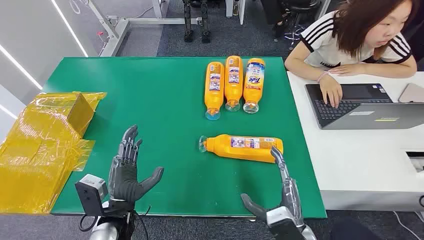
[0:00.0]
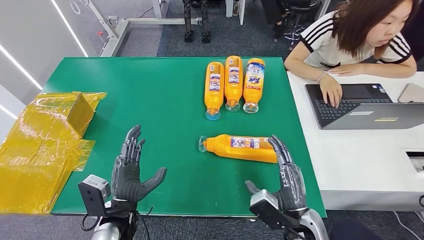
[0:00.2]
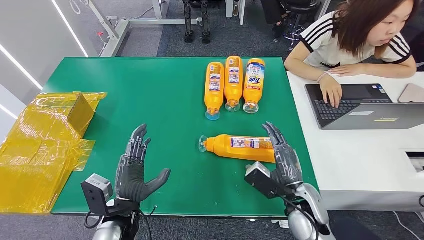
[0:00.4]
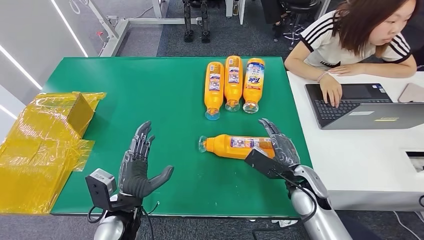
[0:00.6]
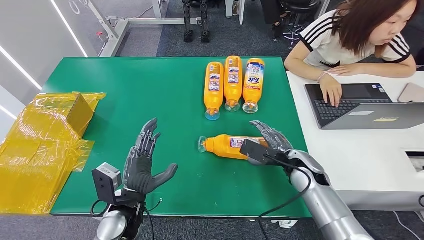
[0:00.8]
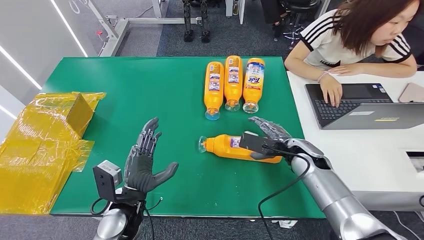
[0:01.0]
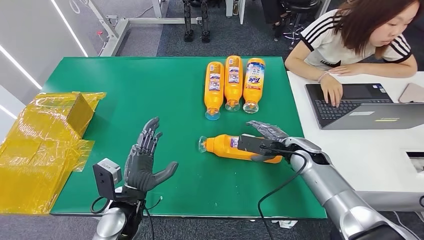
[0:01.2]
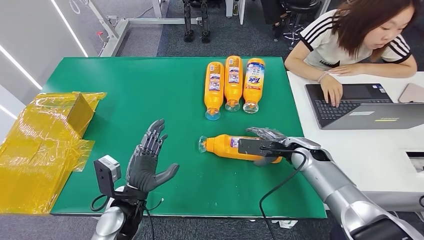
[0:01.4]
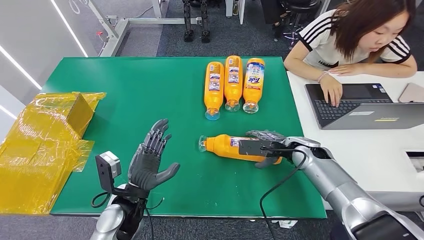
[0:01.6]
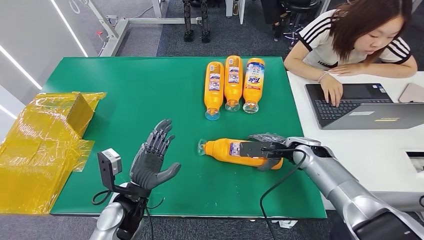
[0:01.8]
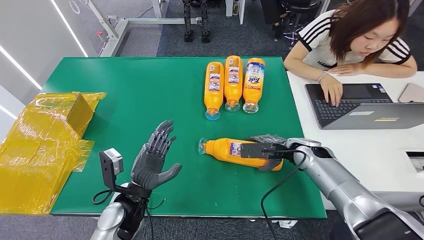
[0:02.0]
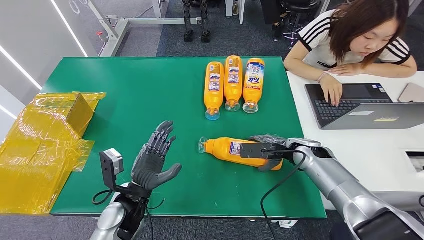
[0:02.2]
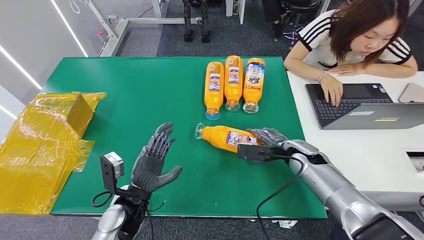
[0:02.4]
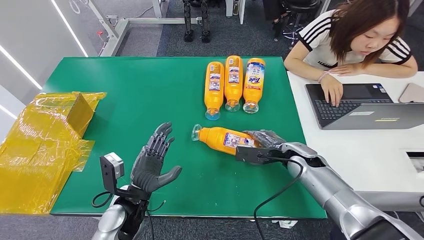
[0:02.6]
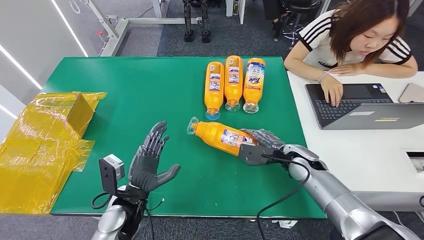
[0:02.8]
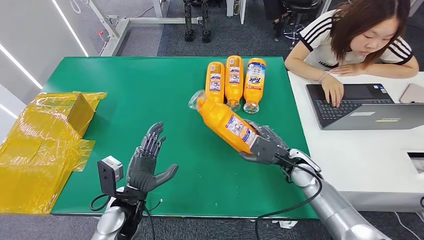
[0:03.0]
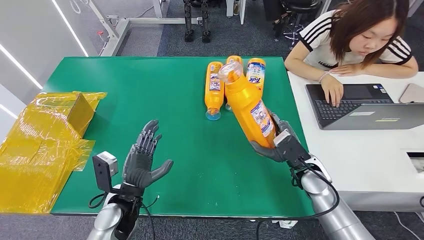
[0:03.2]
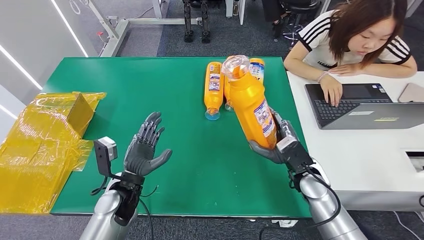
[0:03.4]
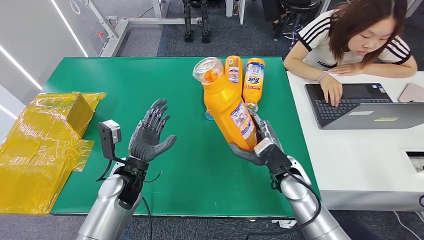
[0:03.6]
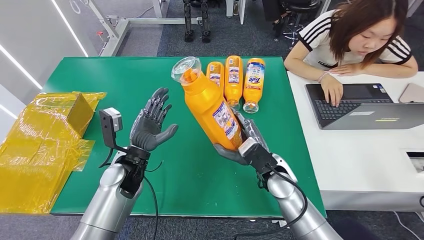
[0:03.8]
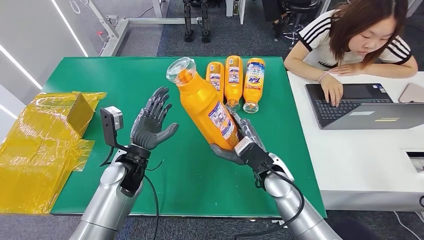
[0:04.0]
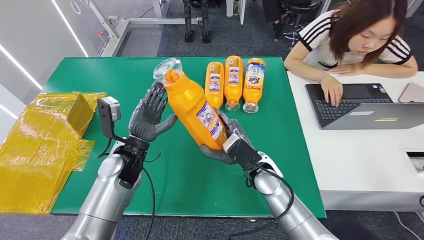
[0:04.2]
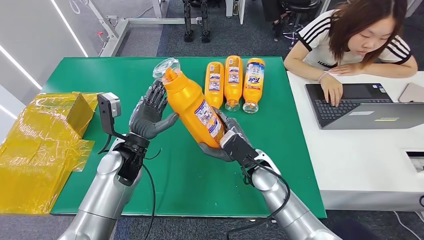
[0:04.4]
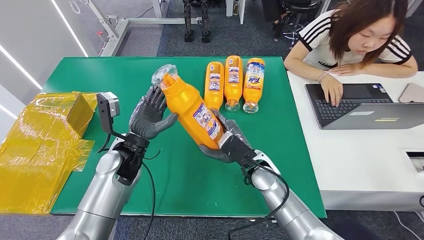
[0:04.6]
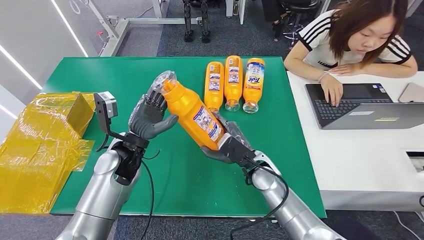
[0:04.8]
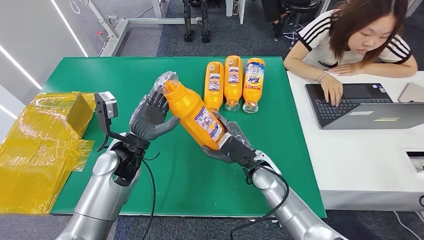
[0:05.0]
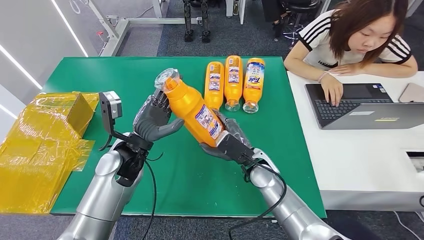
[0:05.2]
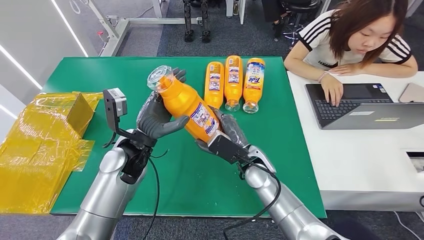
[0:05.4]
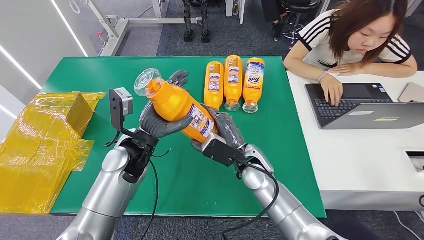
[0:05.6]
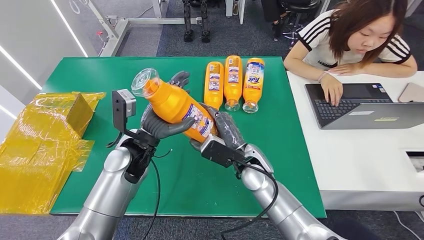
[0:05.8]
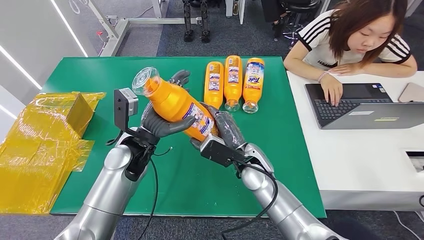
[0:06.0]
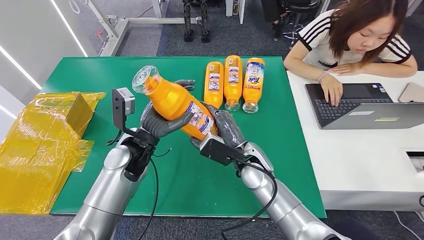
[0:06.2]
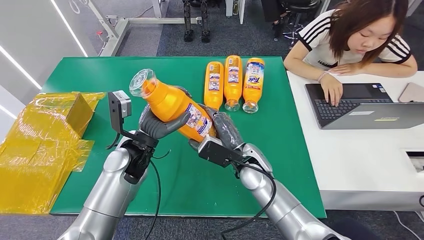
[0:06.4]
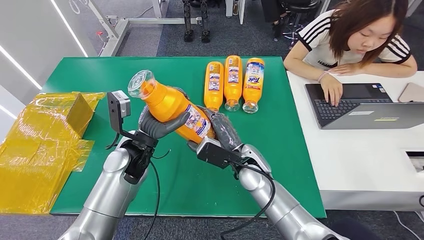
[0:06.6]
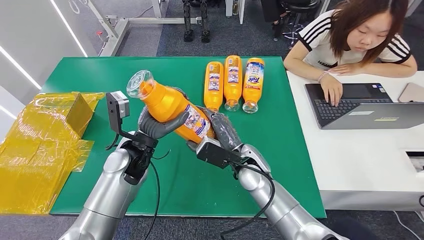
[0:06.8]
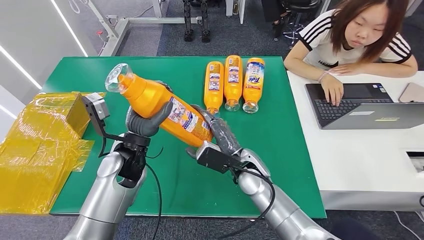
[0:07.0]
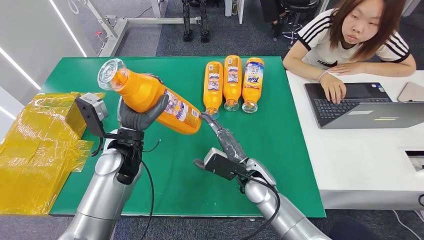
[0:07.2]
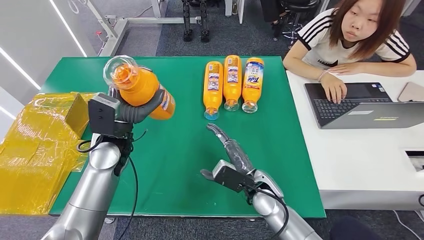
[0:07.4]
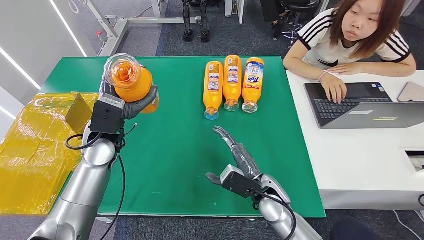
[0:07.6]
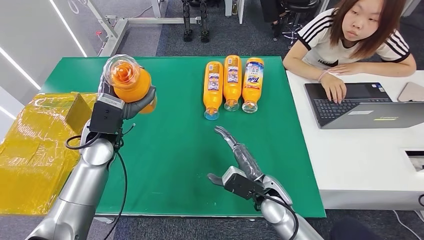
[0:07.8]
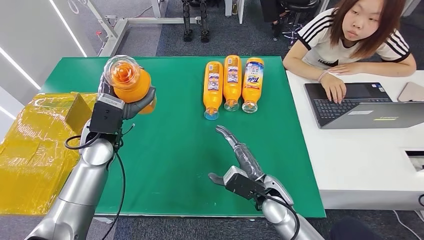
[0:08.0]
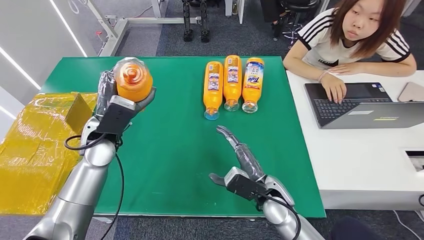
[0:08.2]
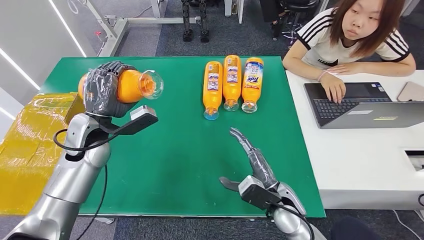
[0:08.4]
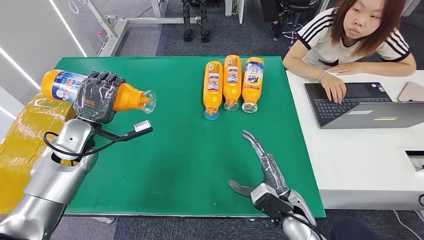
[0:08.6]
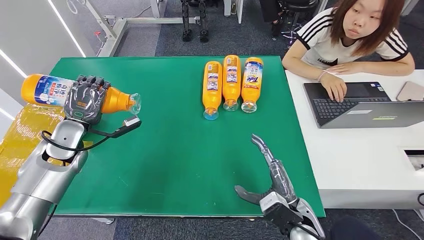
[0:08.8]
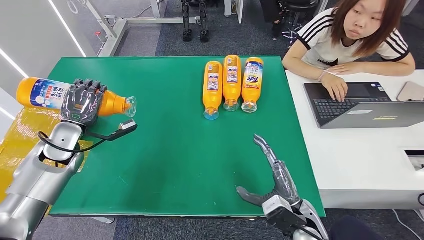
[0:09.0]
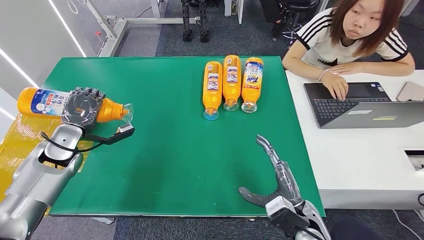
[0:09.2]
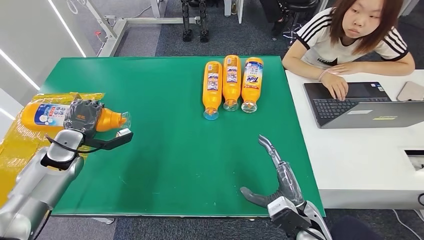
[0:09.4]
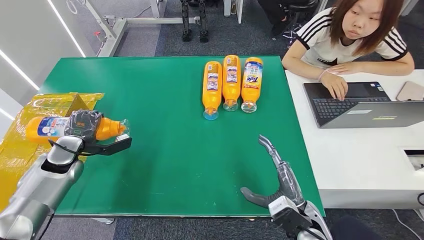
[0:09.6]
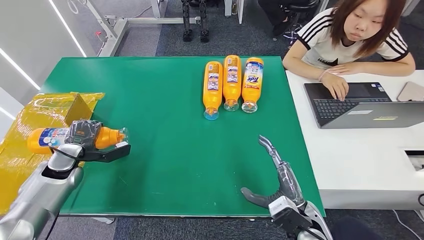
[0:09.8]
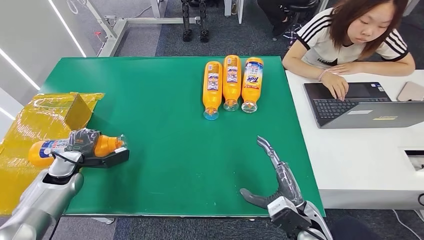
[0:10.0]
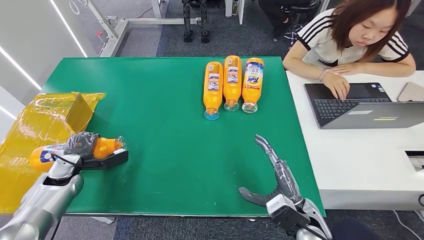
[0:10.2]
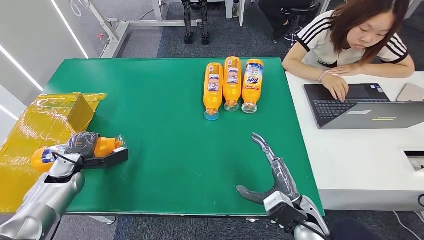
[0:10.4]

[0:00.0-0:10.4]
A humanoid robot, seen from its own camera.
Step, 0:00.0 to 0:04.2: Pick up the bottle from the table.
0:04.4 to 0:06.0: The hands move only a little.

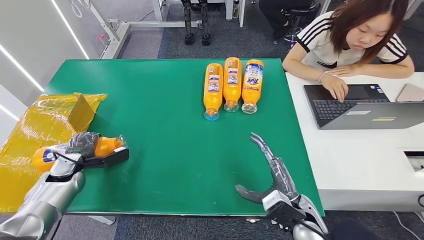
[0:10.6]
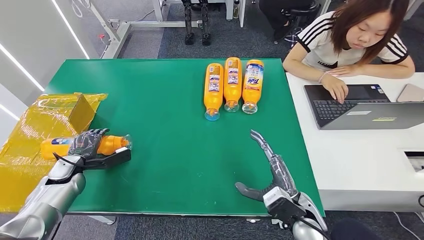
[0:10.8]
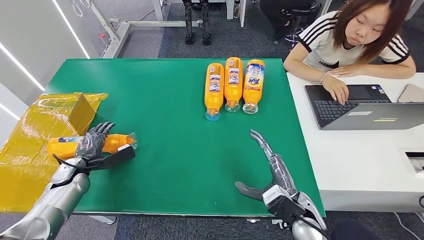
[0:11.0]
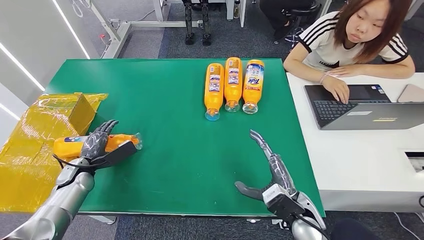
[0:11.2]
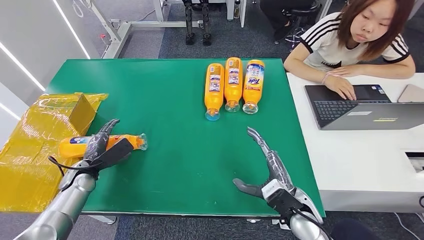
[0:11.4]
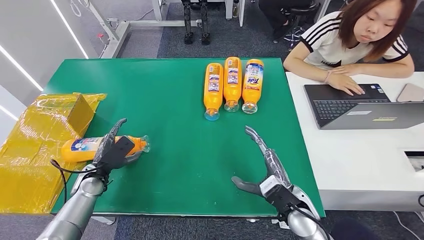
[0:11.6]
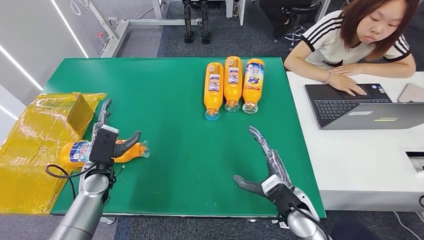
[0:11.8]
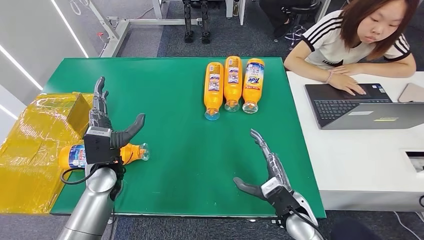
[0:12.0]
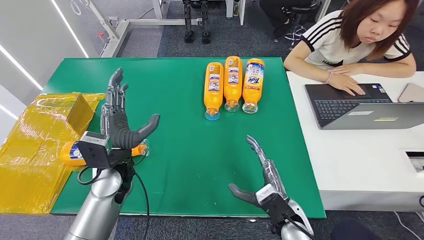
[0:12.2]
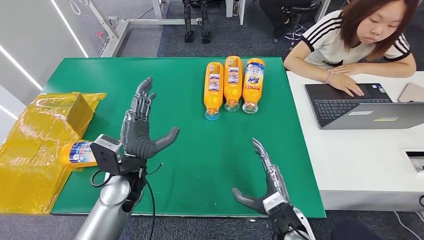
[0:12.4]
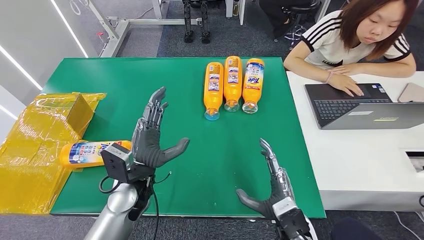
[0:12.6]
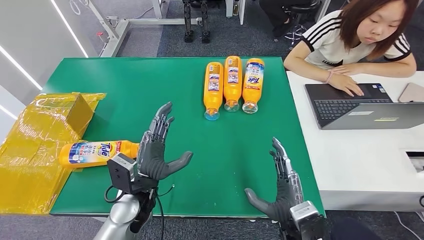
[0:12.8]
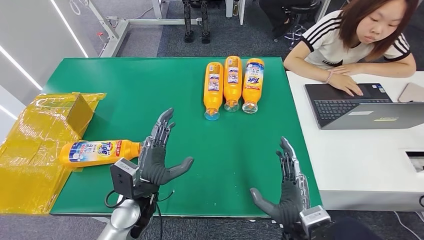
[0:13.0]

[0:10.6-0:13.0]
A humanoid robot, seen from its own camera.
Step, 0:10.6 to 0:13.0: Turn the bottle to the front side.
0:10.6 to 0:11.8: The left hand goes some 10 cm to the right.
0:11.8 to 0:13.0: The right hand heads backward, covering about 10 cm. Meanwhile the left hand is displaced to the right and backward by roughly 15 cm.
